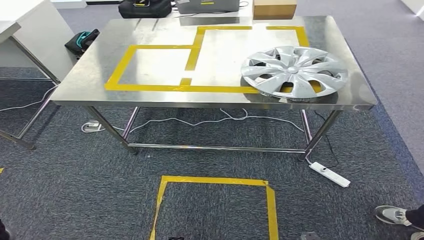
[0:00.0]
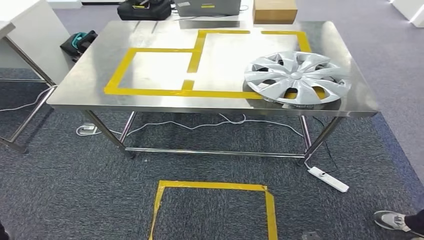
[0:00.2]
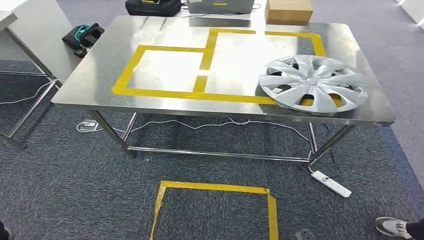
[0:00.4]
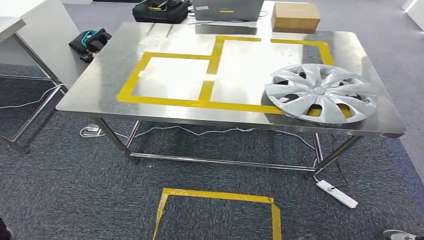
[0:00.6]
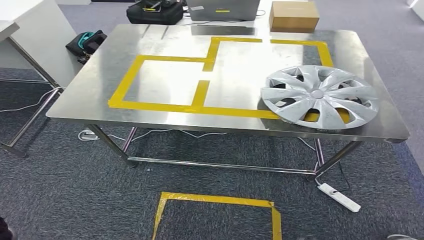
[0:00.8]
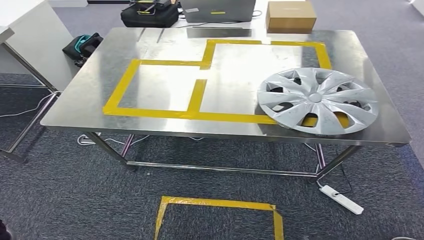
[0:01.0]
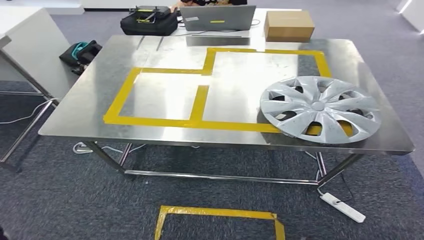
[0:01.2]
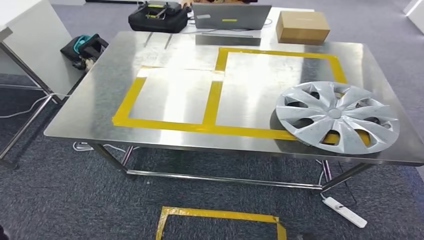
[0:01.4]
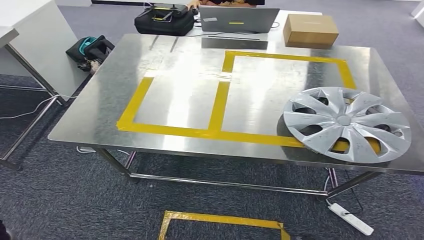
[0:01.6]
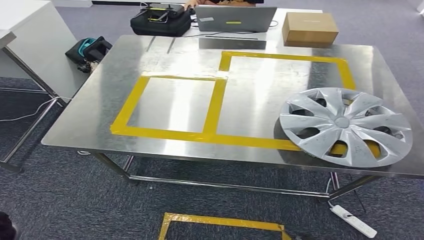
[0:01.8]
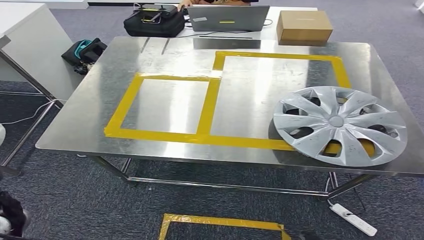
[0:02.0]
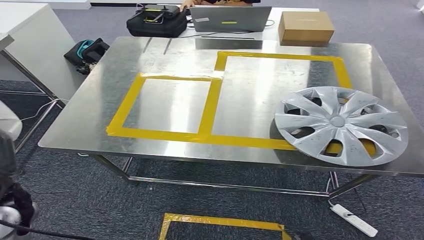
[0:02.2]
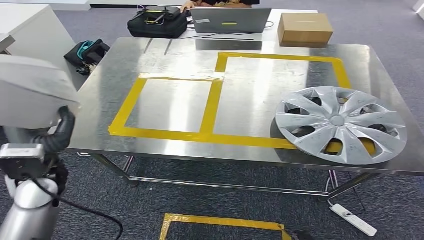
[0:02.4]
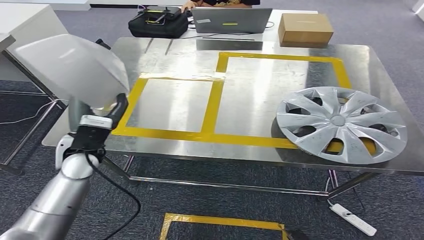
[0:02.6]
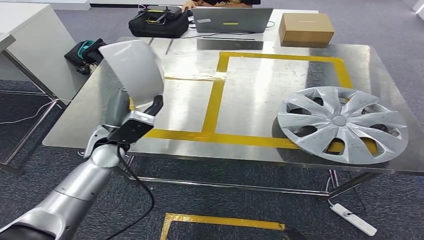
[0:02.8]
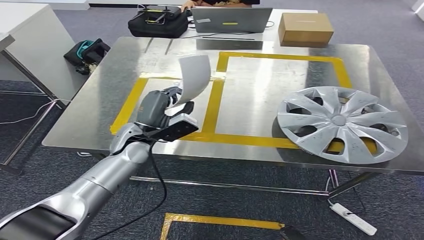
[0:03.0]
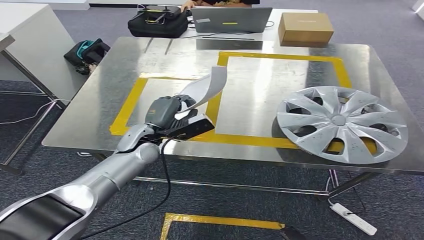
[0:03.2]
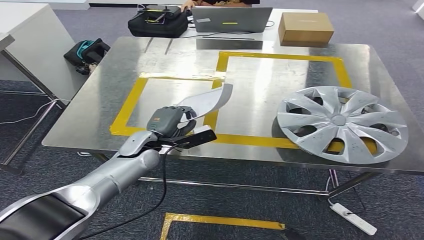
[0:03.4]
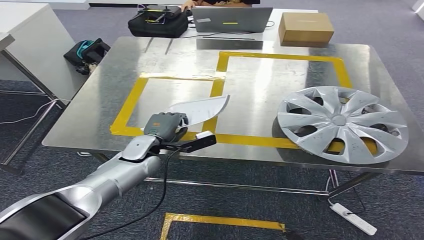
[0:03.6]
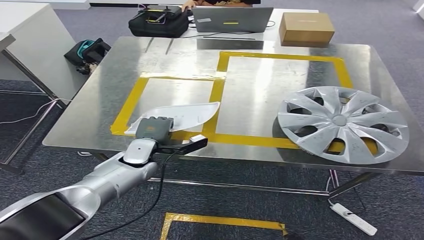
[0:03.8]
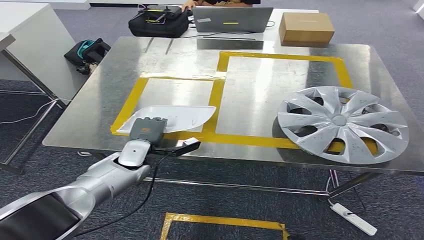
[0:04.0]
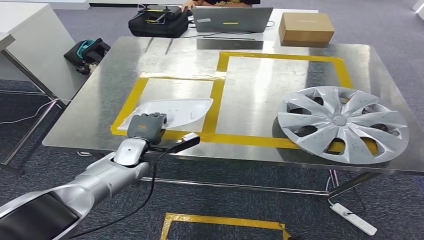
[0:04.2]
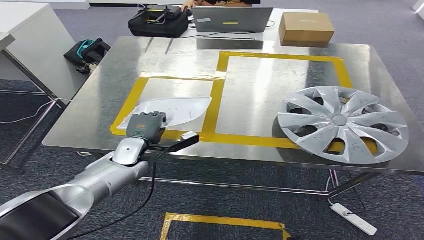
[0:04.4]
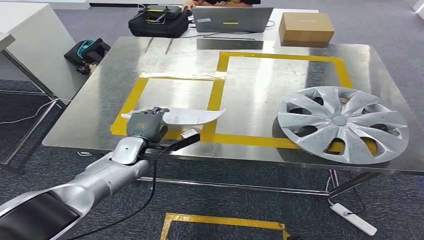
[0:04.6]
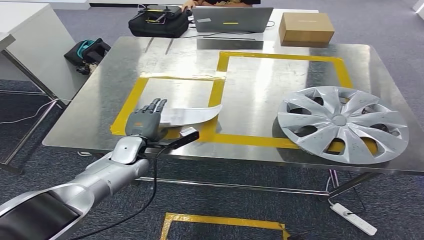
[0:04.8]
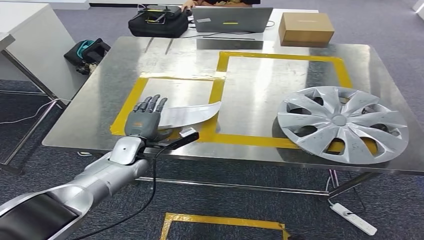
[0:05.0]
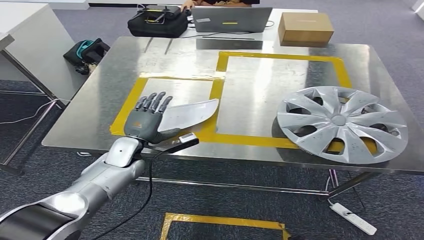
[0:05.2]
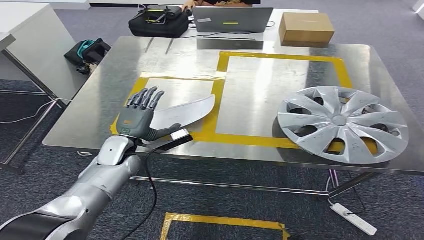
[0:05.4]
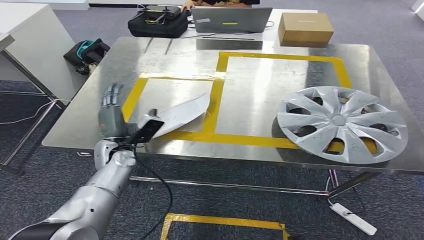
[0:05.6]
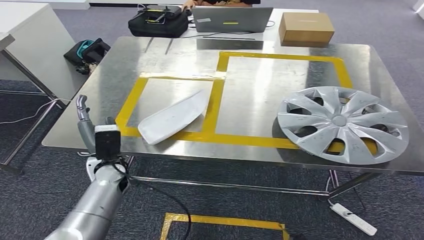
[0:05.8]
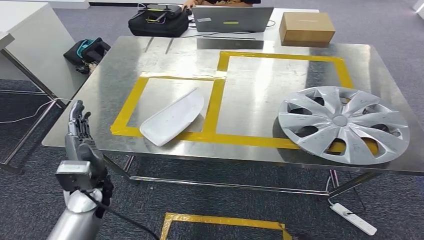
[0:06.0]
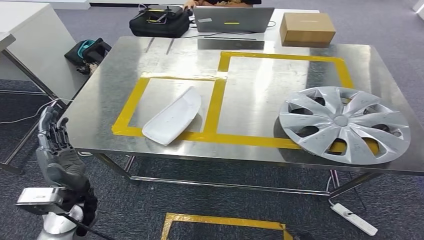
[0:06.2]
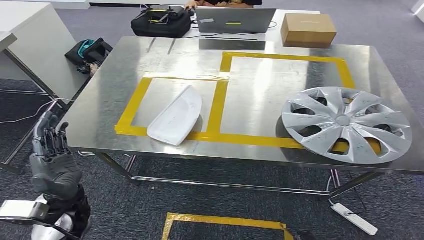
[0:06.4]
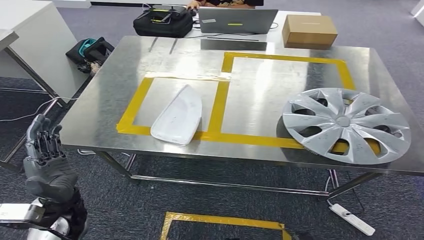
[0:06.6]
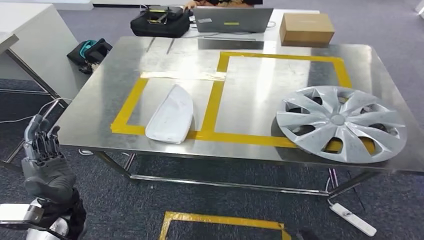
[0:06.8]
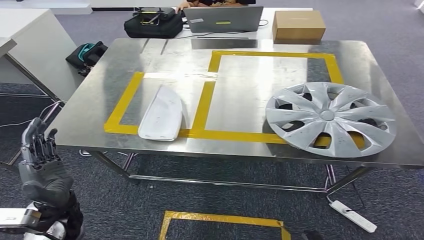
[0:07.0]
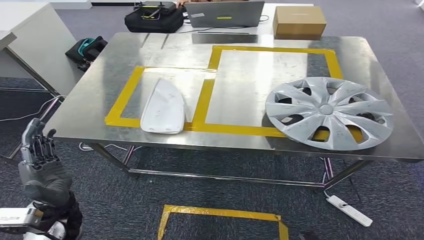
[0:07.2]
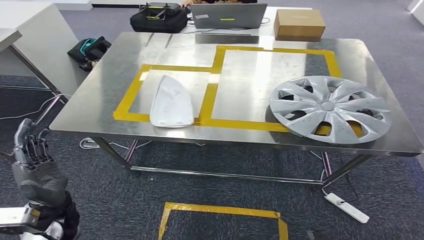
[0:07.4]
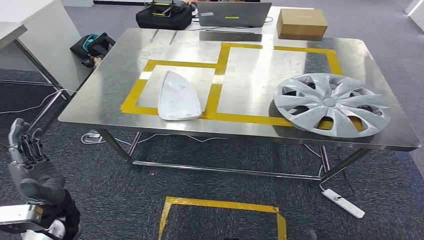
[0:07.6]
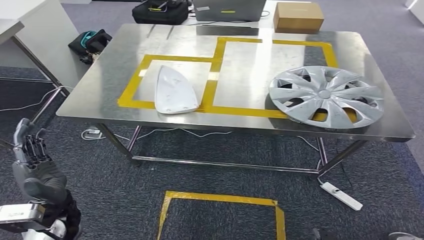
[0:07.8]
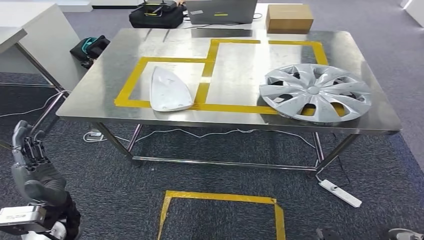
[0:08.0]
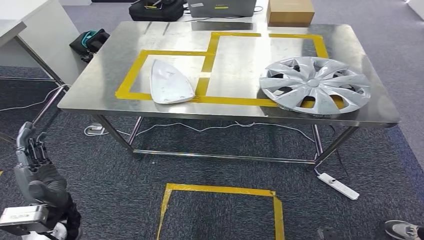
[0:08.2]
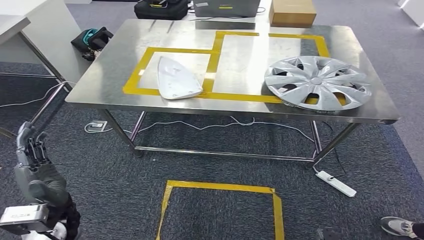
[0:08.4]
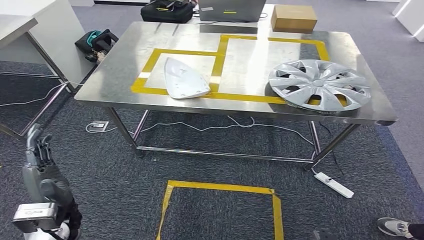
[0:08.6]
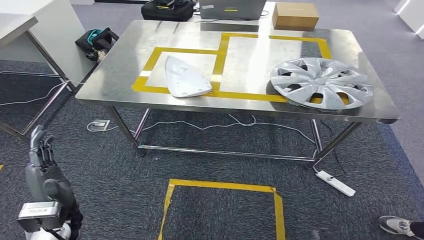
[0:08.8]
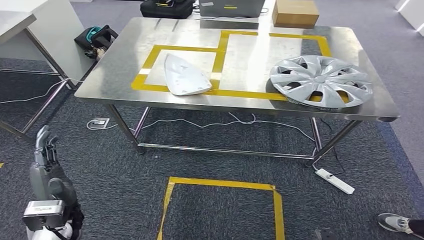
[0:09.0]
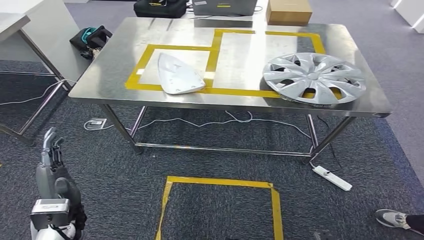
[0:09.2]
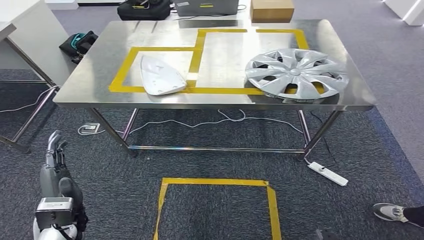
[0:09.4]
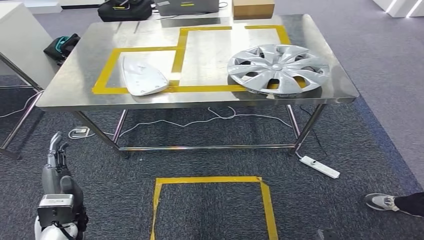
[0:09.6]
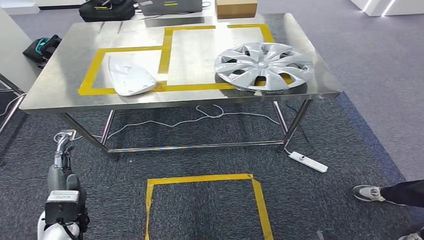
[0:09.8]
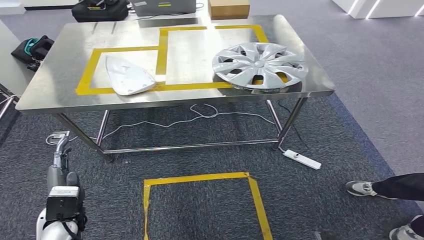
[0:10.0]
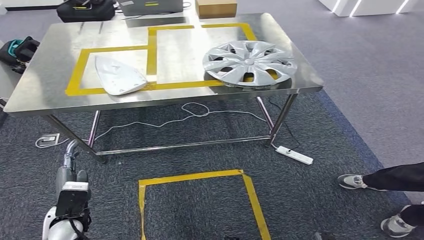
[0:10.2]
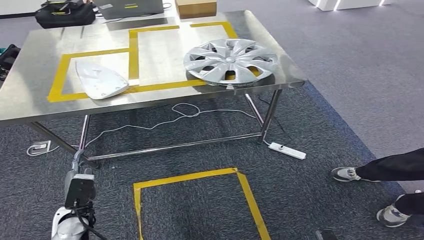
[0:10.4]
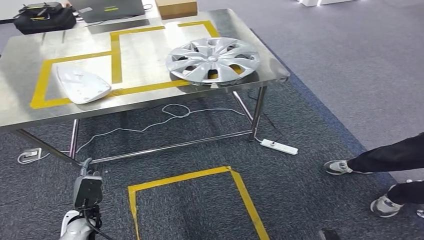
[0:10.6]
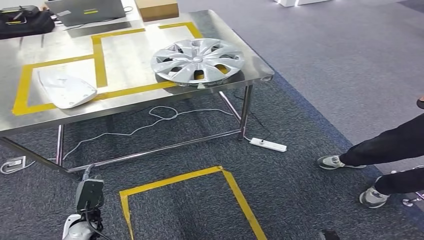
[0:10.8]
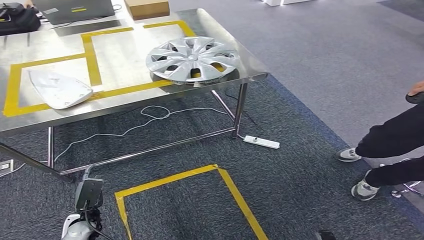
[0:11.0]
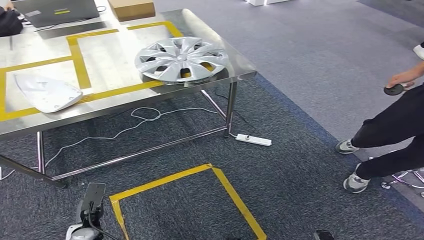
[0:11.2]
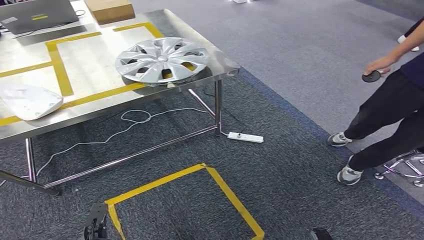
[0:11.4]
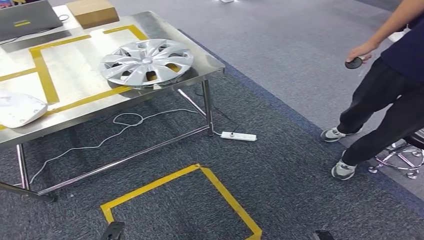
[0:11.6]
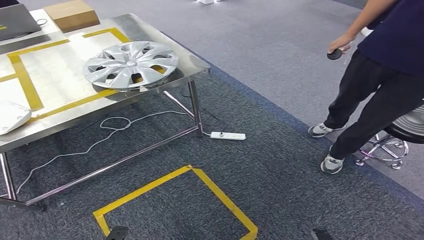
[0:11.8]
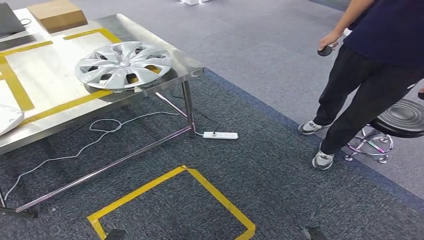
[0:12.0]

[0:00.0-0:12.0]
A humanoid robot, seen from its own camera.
Step, 0:00.2 to 0:08.2: Insert the small component into the corresponding slot on the workbench.
0:03.0 to 0:04.4: The left hand travels downward by approximately 5 cm.
0:04.4 to 0:06.0: The left hand moves backward, some 10 cm.

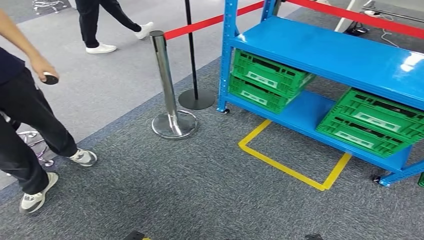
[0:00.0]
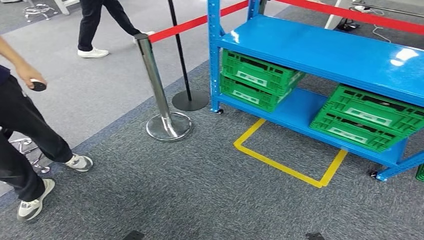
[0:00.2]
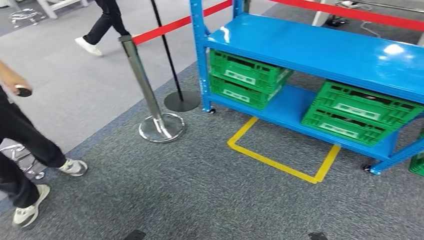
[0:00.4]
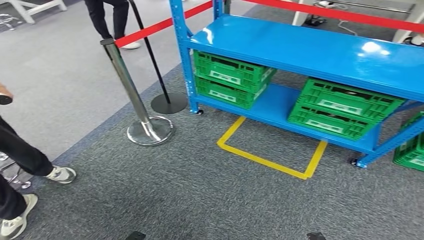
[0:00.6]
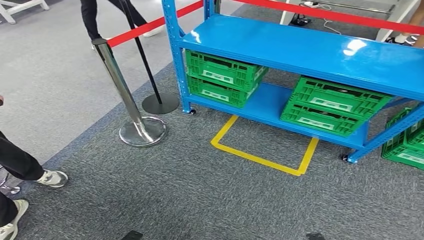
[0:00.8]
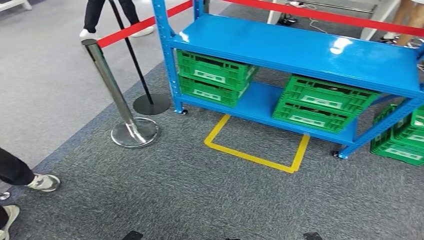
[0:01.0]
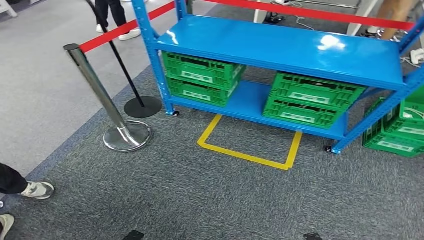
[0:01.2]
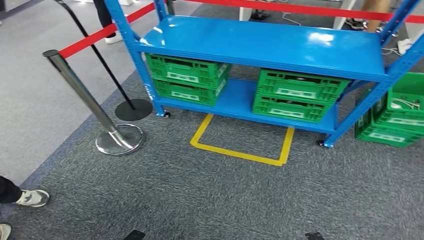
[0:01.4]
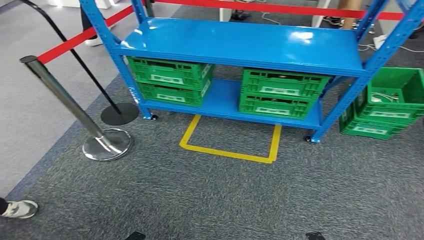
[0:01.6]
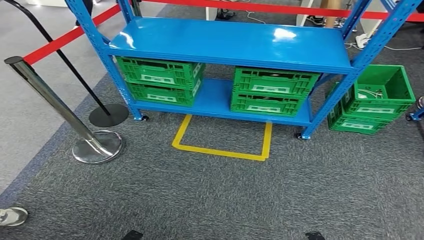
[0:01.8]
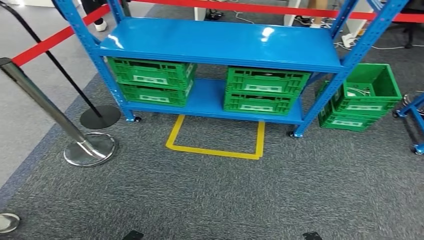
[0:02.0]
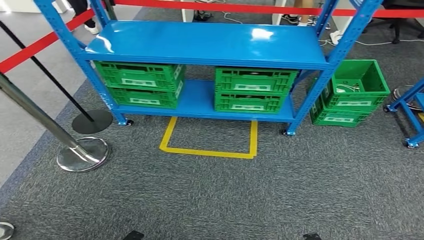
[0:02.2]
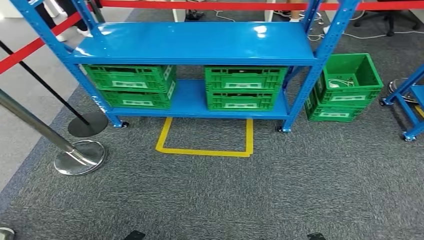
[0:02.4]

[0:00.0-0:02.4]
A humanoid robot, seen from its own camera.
Step, 0:00.0 to 0:02.2: Move to the initial position at the workbench.
